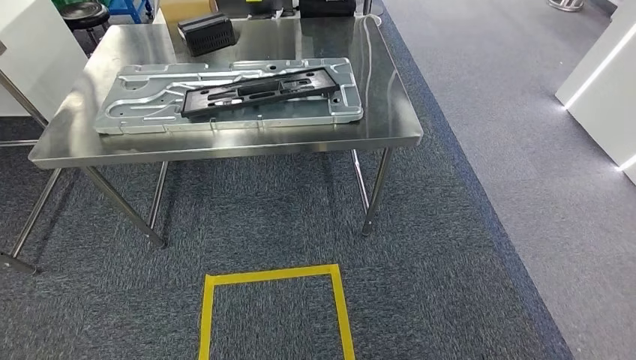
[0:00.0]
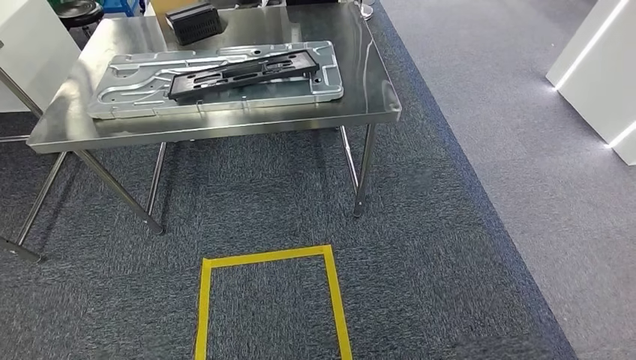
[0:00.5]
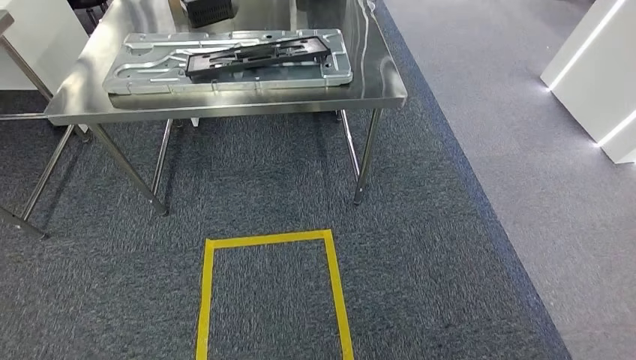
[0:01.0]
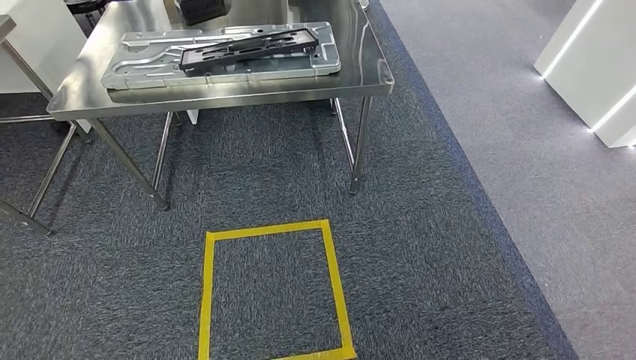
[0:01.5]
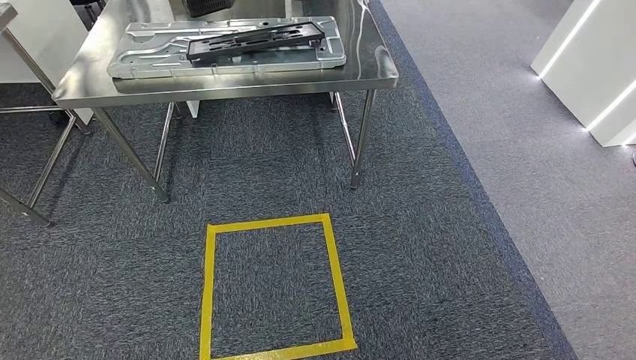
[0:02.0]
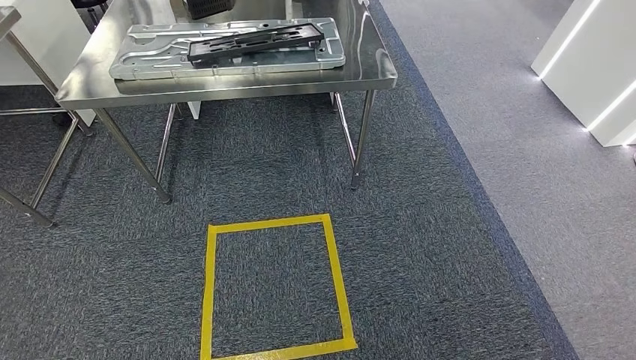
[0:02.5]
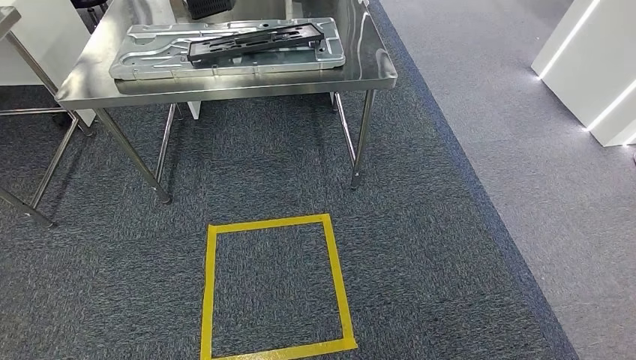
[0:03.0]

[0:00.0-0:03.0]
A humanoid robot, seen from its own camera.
Step, 0:00.0 to 0:03.0: Return to the initial position at the shelf.
0:01.5 to 0:03.0: The hands stay close to where they were, moving slightly.
